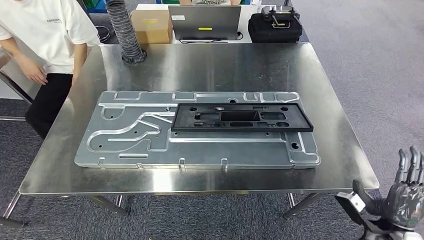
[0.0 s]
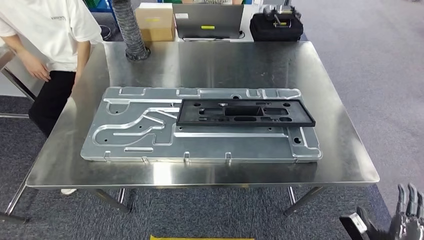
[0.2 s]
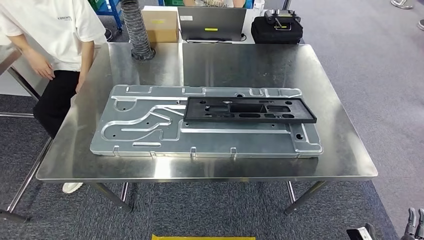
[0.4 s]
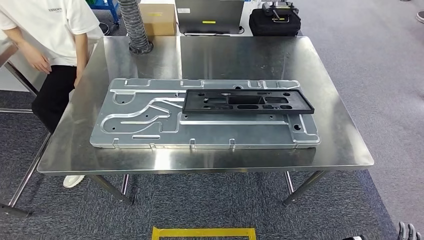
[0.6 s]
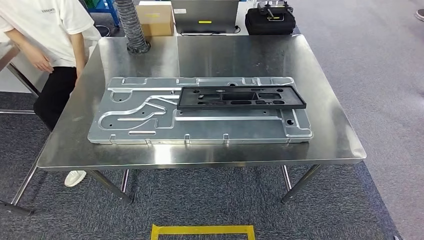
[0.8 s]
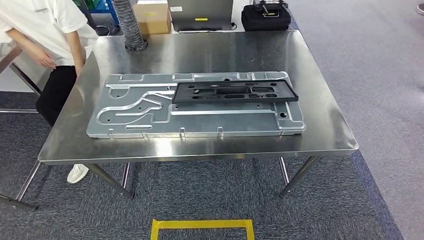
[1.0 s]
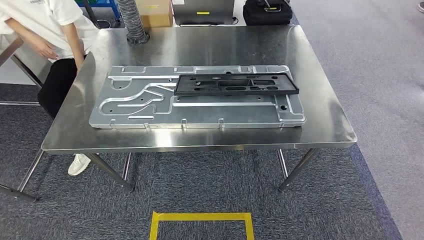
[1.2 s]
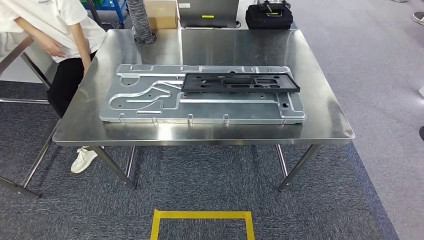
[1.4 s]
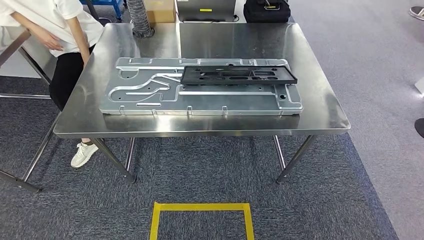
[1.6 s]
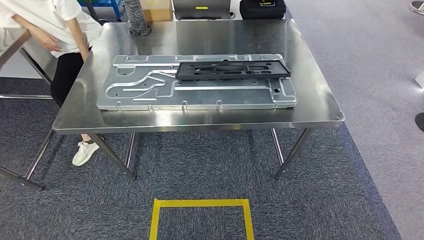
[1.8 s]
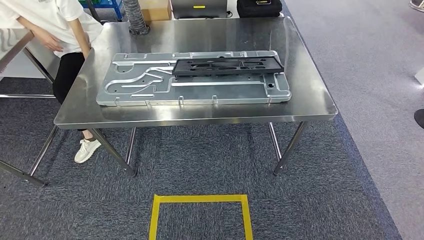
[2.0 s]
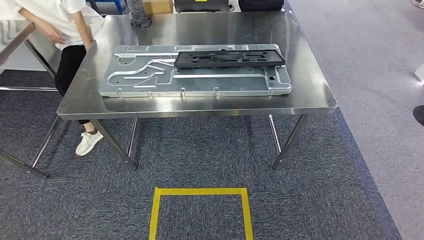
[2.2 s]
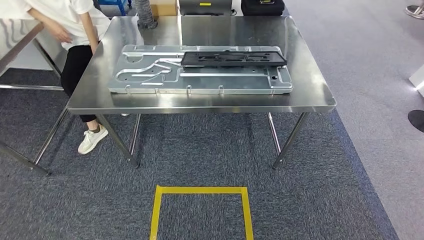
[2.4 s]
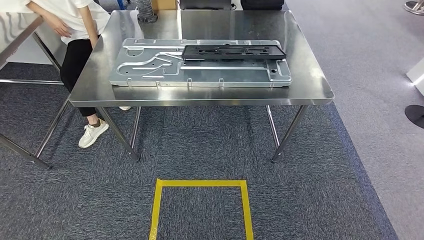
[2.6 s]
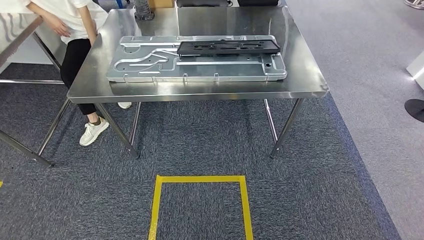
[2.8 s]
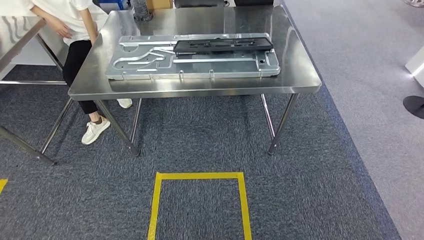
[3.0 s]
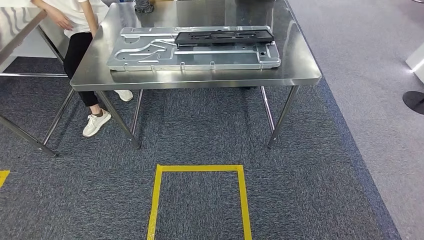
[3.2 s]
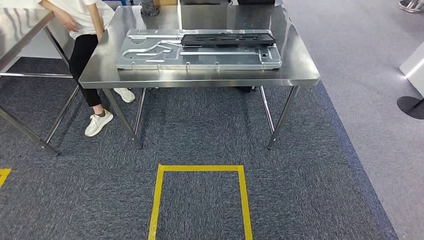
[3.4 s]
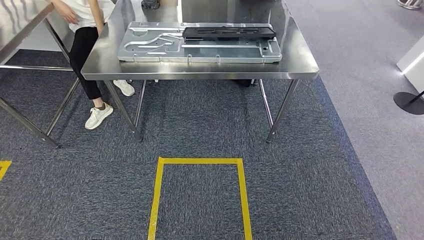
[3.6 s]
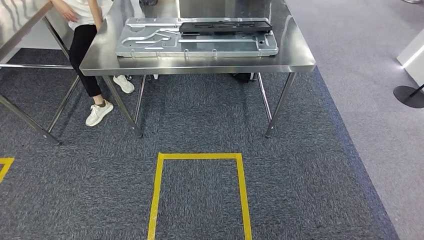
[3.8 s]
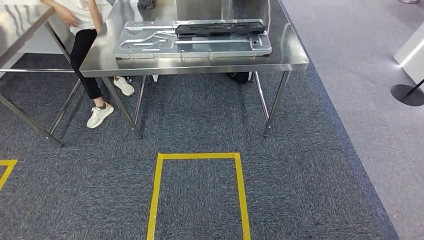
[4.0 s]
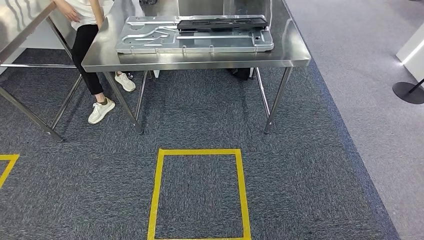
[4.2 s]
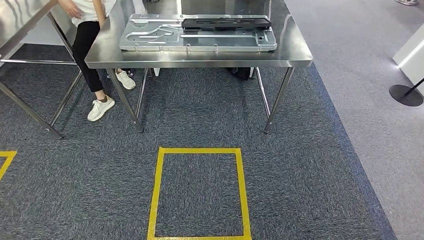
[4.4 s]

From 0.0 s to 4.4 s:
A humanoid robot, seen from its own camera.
Step, from 0.6 s to 4.4 s: Move to the initial position of the shelf.
